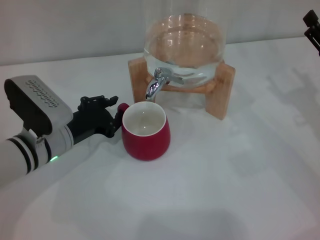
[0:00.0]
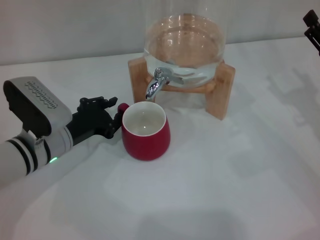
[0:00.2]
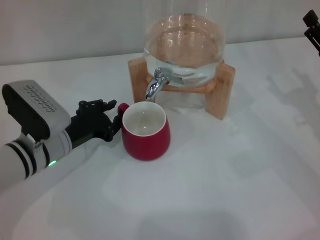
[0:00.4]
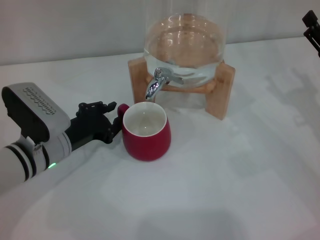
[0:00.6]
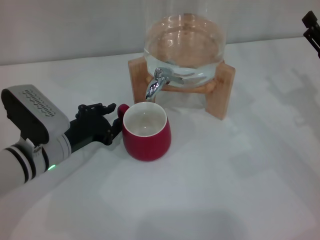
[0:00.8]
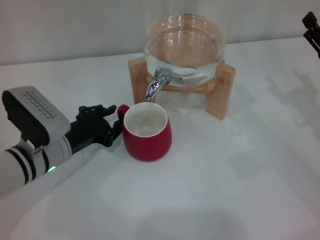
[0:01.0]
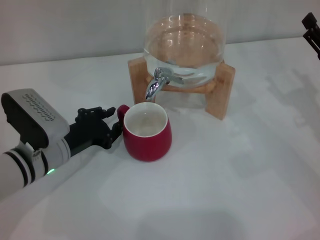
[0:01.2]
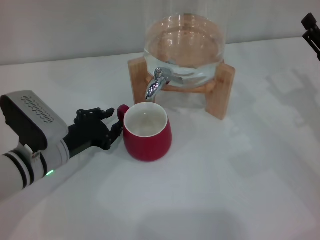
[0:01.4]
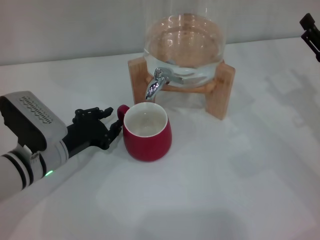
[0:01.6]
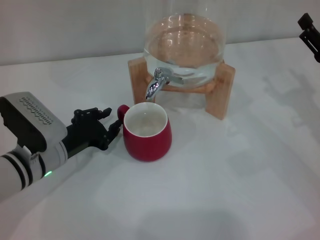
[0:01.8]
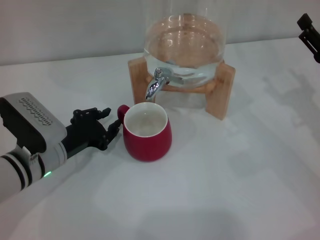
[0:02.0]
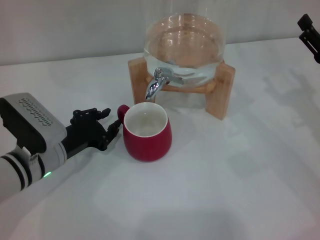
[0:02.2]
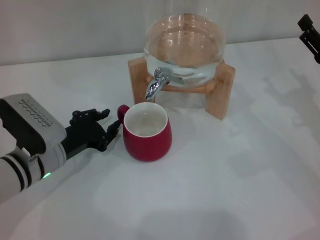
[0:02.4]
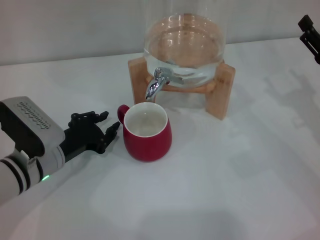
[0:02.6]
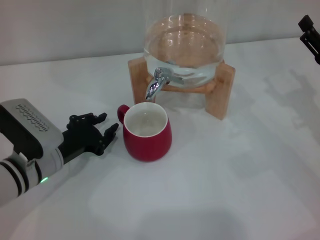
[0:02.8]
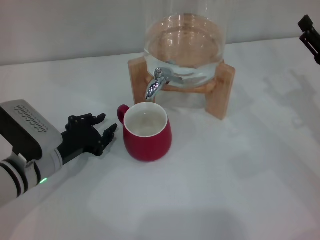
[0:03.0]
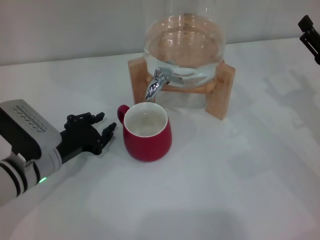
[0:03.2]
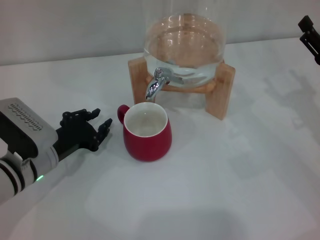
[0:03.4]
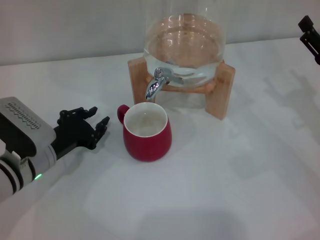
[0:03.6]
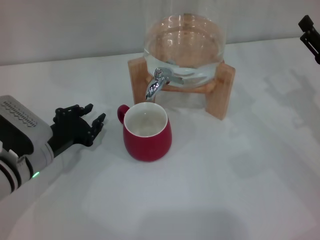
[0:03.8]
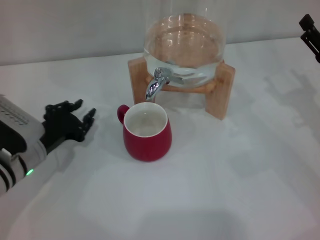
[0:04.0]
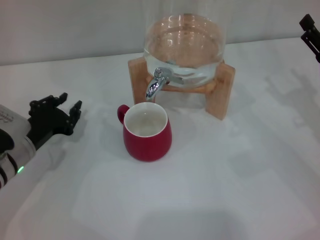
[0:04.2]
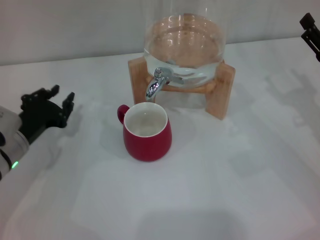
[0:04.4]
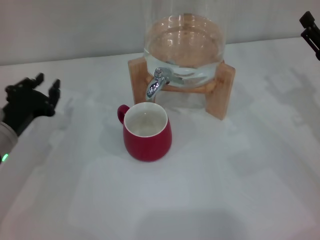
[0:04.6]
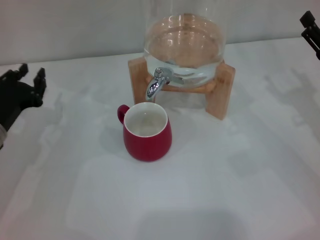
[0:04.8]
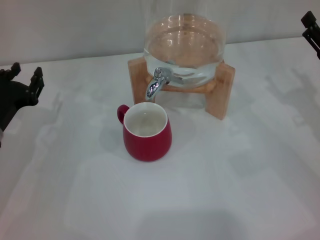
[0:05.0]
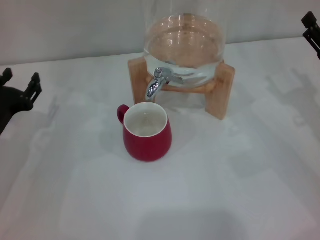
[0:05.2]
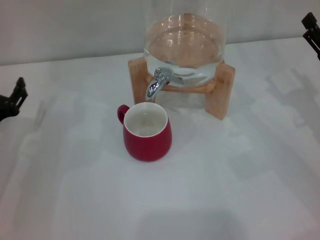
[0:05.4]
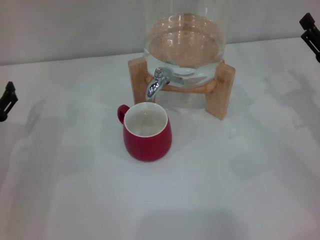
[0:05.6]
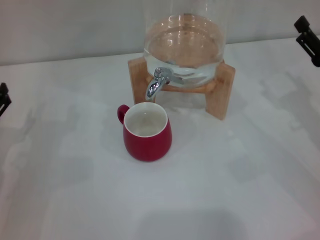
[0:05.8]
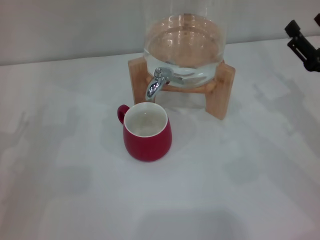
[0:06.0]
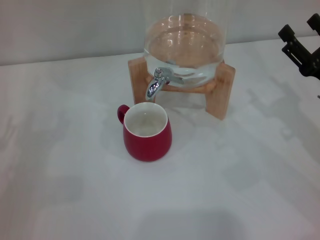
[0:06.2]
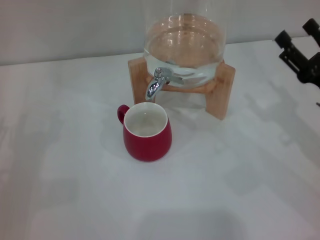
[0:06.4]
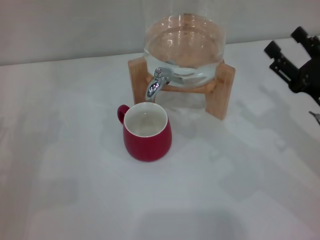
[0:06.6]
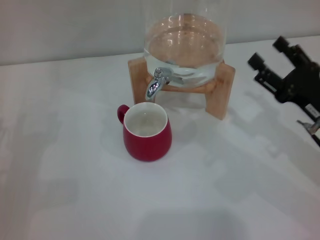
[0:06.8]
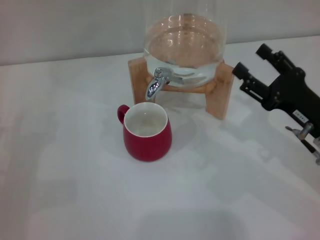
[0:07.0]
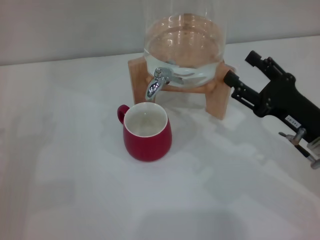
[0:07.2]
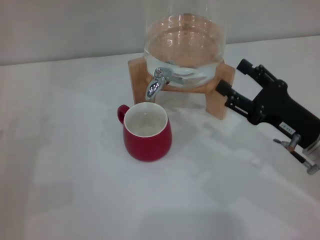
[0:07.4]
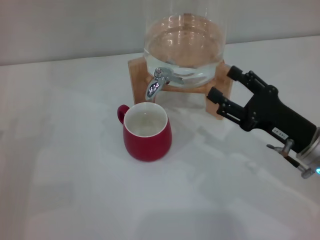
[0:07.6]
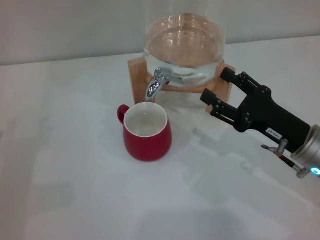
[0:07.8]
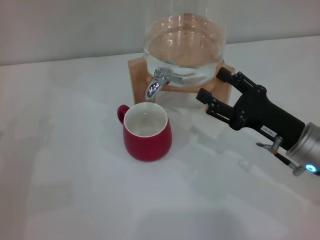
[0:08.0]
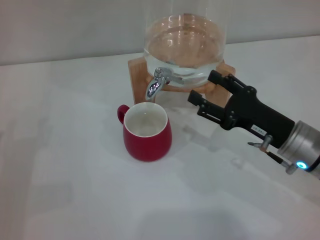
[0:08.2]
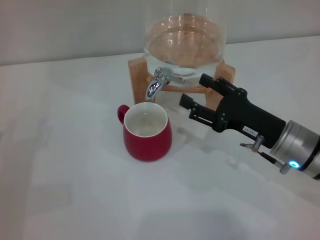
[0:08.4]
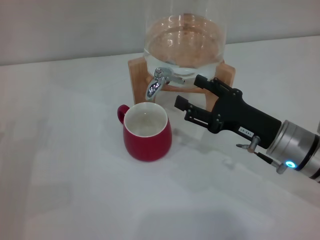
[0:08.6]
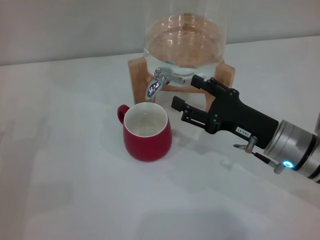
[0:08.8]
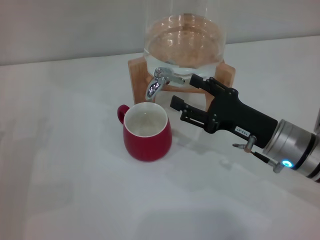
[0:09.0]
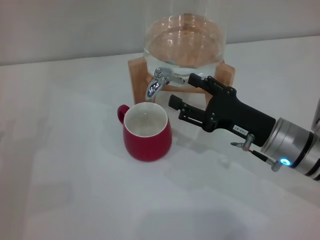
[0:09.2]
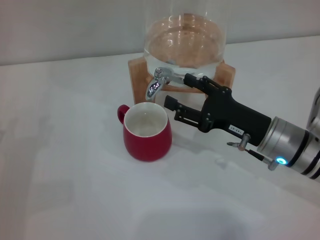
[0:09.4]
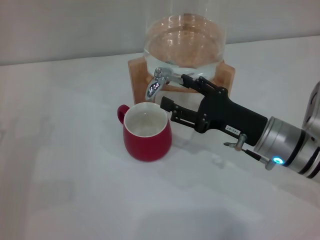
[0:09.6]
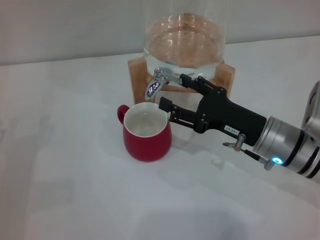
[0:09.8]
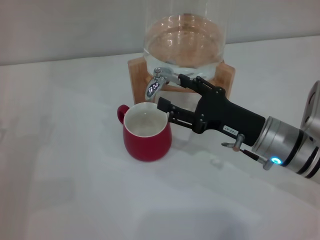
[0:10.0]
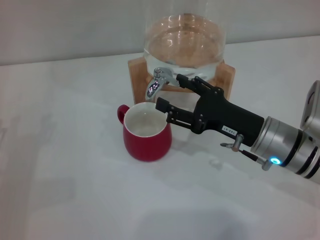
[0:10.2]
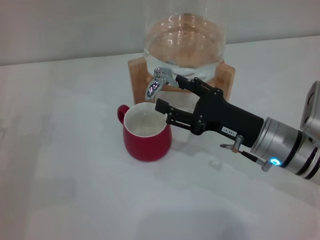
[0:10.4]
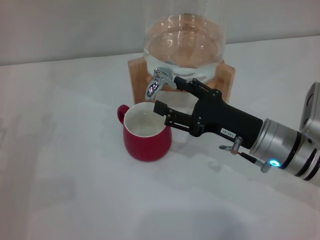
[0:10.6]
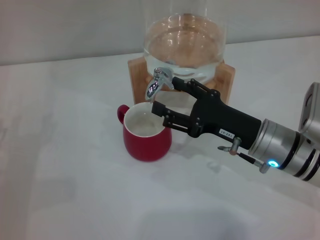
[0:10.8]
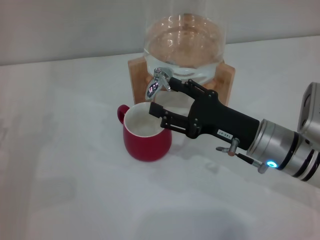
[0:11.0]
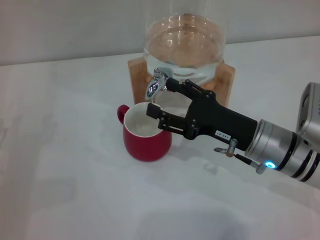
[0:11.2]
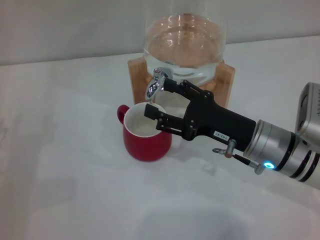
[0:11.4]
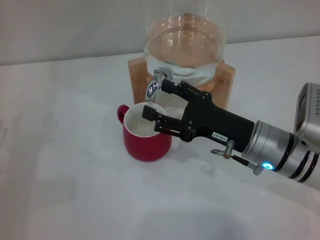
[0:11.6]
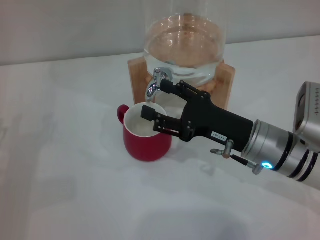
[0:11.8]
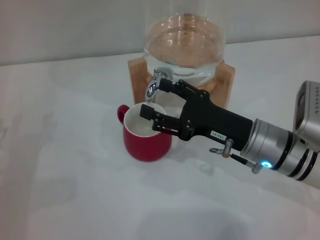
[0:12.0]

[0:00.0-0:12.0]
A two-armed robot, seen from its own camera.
Task of the whole recording: the left gripper pick up the red cup and place it horizontally under the faucet, the right gripper turn on the faucet to fill the cup, and then turn off the faucet.
Step, 0:00.0 to 0:03.0: Move the cup beneath the water dispenser nozzle with the left gripper.
0:00.0 to 0:04.4: The grippers make only small movements.
0:04.4 to 0:06.0: The left gripper is displaced to the left and backward by about 10 cm, and opens.
0:06.0 to 0:07.6: The right gripper travels to the left by some 5 cm.
0:07.6 to 0:09.0: The grippers stay close to where they were, moving slightly.
0:09.0 to 0:12.0: The grippers move only a little.

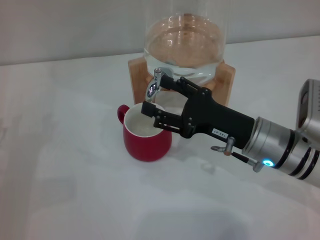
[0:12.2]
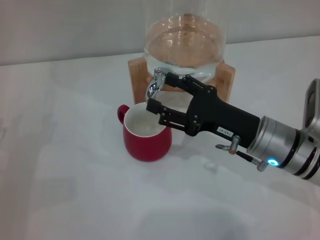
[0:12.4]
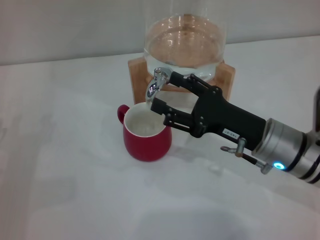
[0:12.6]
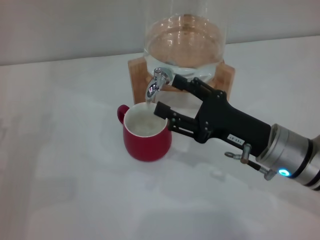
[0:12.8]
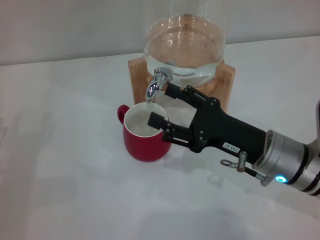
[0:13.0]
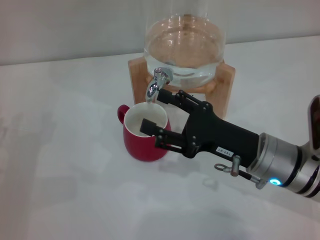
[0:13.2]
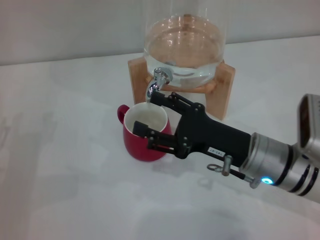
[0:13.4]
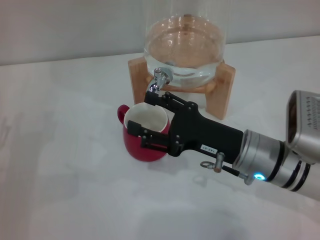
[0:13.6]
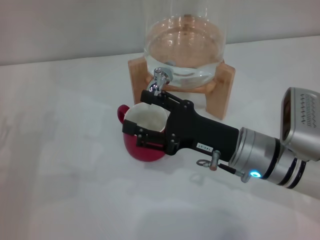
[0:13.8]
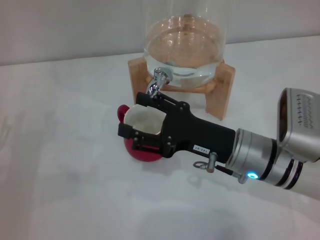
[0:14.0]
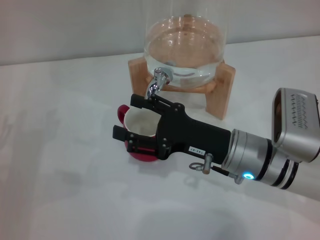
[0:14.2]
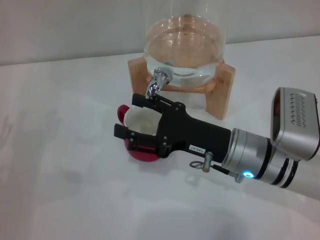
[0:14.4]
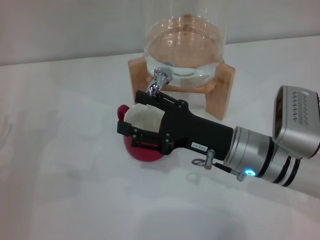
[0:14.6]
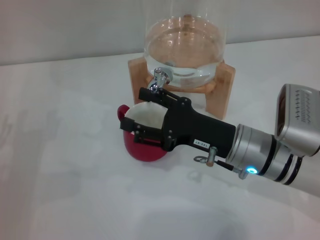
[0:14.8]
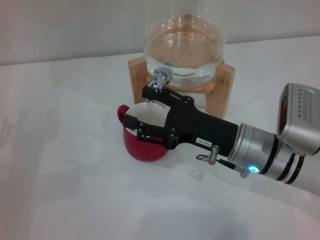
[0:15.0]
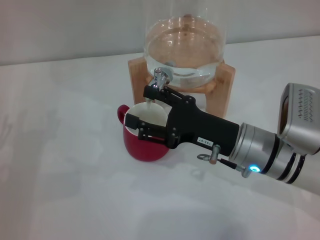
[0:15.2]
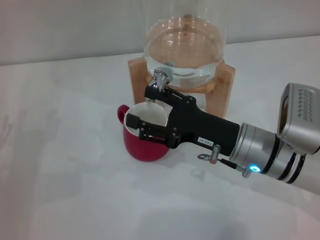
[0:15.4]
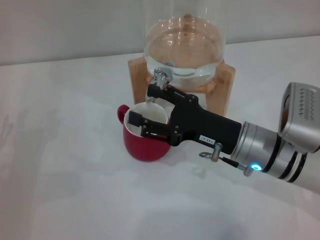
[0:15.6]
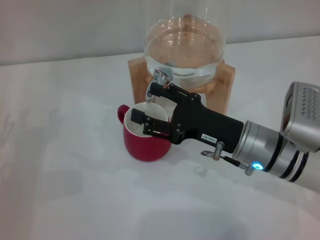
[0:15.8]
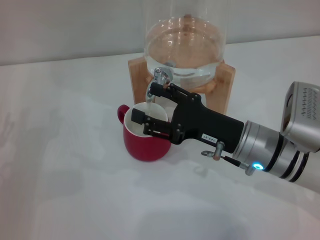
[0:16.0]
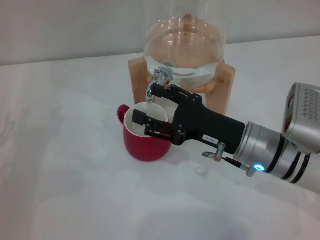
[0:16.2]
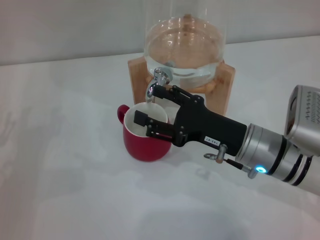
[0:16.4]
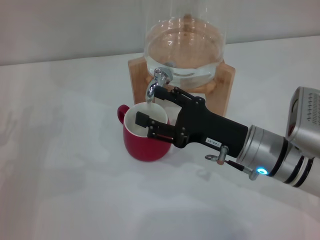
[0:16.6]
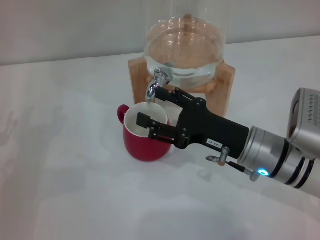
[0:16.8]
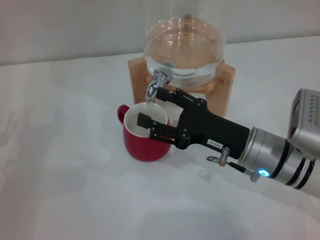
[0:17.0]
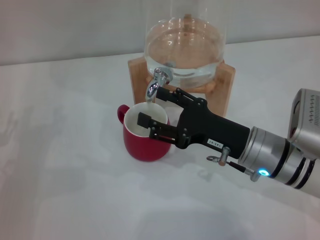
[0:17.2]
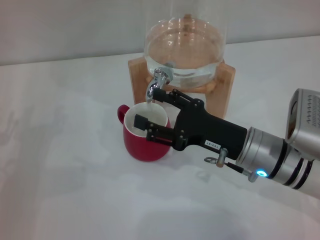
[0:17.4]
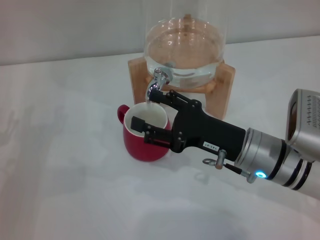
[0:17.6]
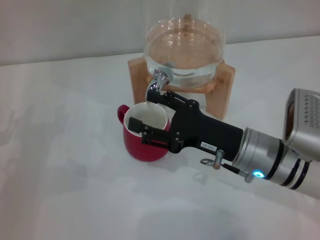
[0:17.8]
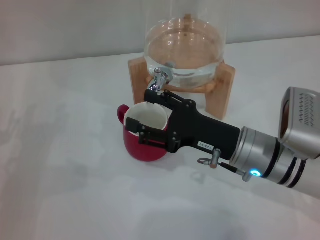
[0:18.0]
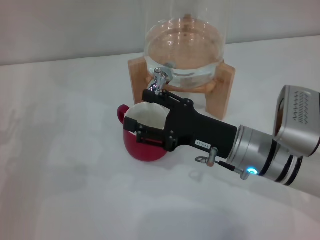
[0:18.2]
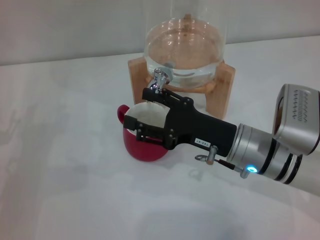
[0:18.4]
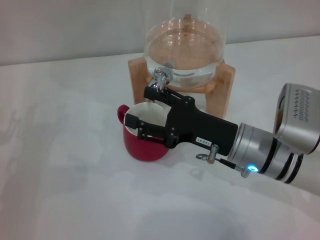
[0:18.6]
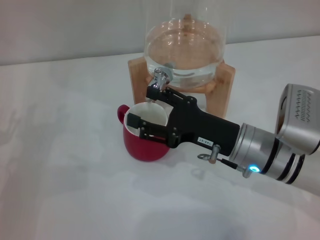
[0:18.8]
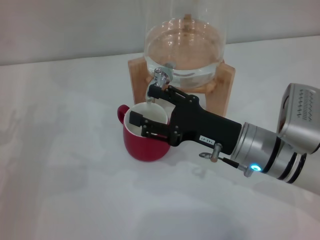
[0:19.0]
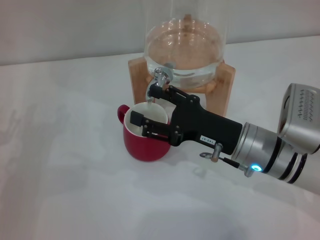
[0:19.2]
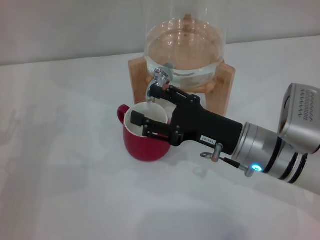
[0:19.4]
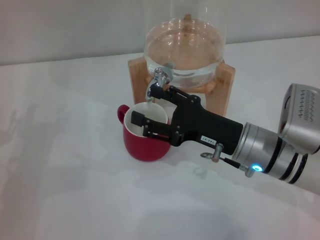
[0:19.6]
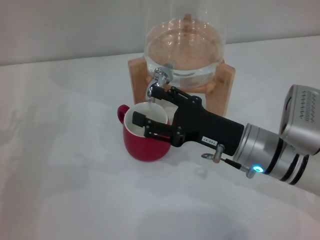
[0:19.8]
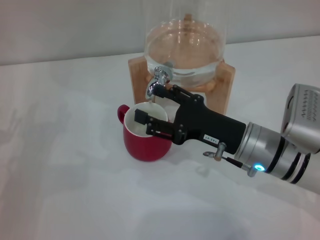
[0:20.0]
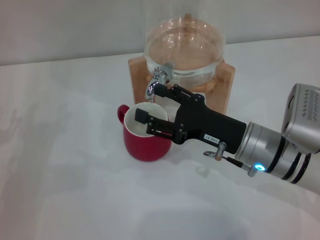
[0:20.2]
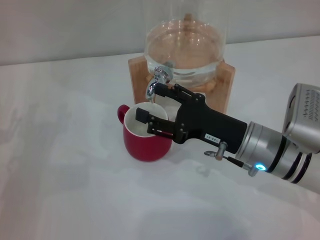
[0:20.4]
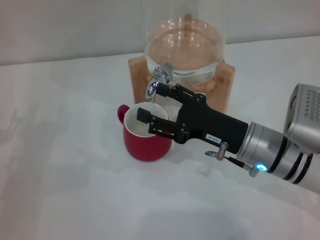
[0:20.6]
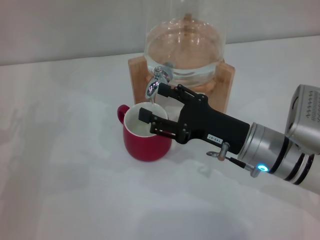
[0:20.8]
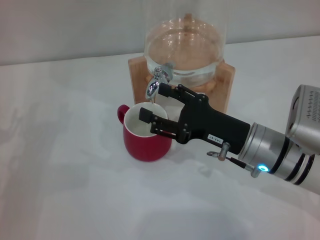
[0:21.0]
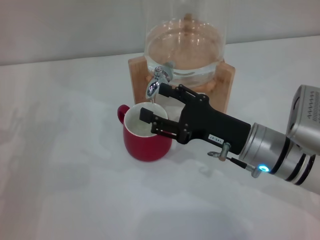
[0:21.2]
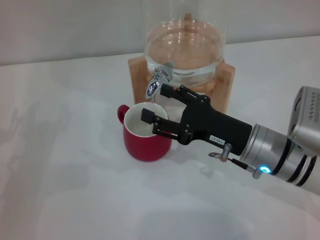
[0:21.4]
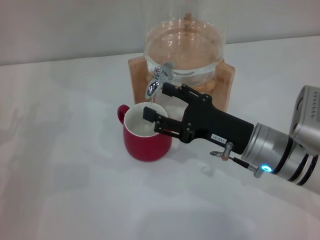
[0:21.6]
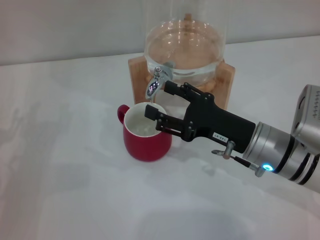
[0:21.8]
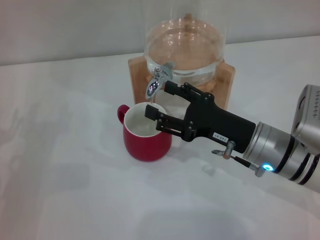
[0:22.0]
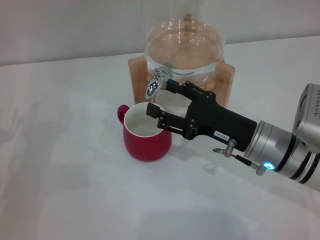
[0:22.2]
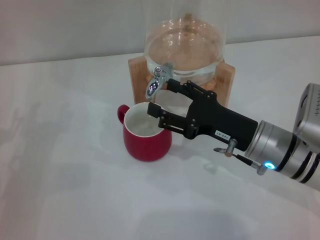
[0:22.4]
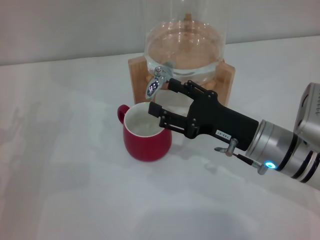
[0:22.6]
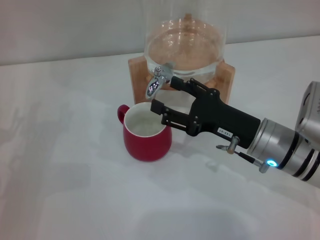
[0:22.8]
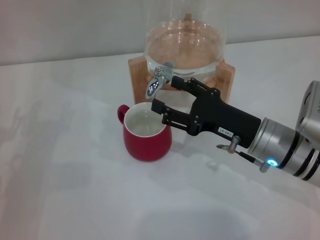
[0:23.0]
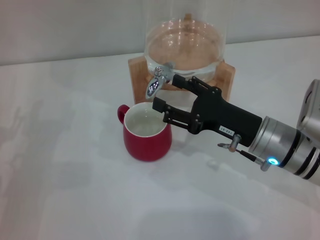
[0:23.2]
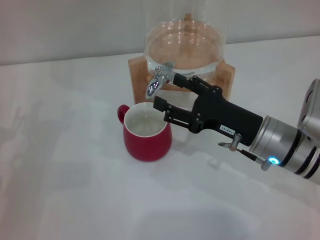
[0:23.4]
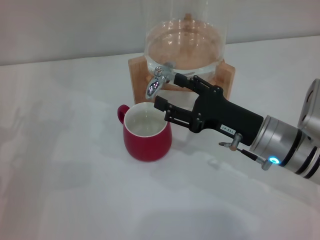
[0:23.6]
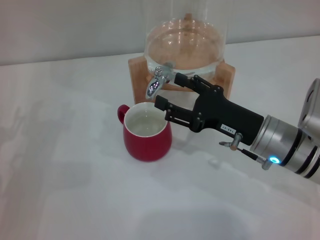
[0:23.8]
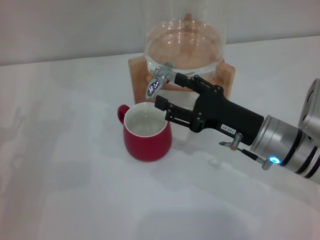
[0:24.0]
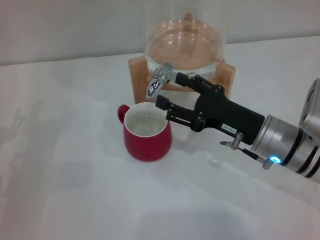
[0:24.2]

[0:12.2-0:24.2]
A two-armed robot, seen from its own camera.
Task of the whole recording: the left gripper pick up the red cup and place it horizontally under the faucet, the right gripper turn on the faucet to fill the cup, and then turn off the faucet.
0:12.2 to 0:13.8: The grippers stay close to where they were, moving slightly.
0:13.8 to 0:16.6: The two grippers keep their place.
0:16.6 to 0:21.2: Both grippers stay about where they are.
0:21.2 to 0:22.6: Neither gripper changes place.
0:22.6 to 0:24.2: Neither gripper changes place.
